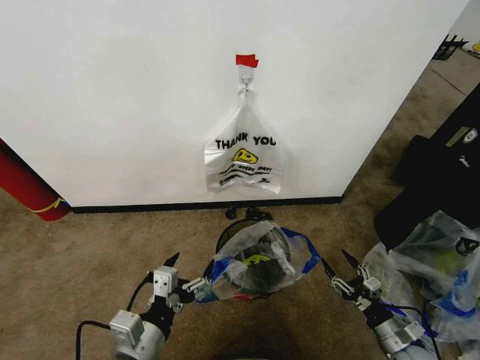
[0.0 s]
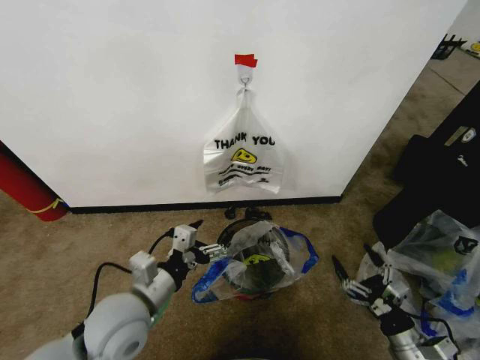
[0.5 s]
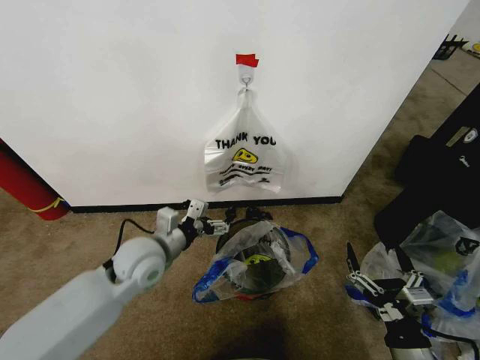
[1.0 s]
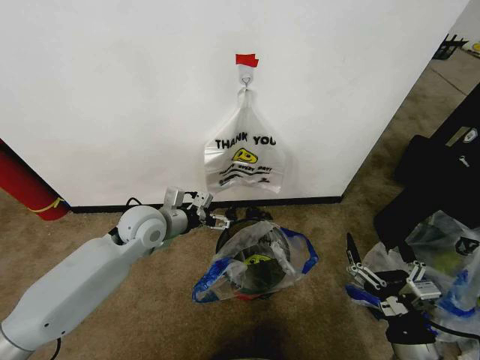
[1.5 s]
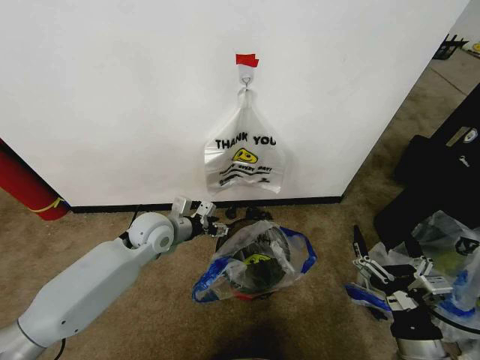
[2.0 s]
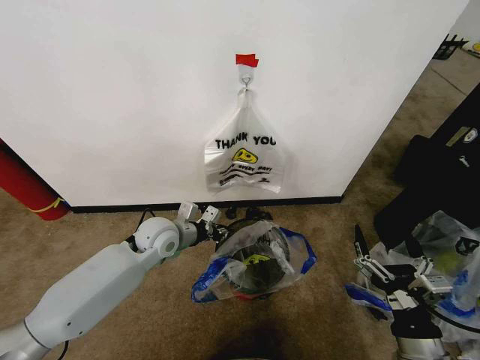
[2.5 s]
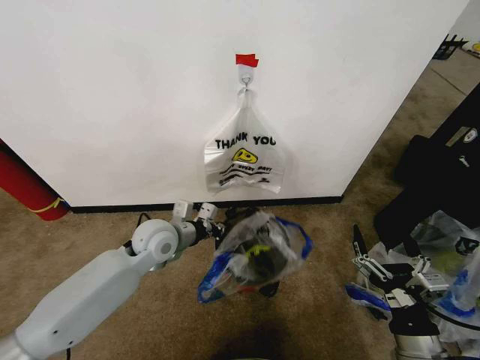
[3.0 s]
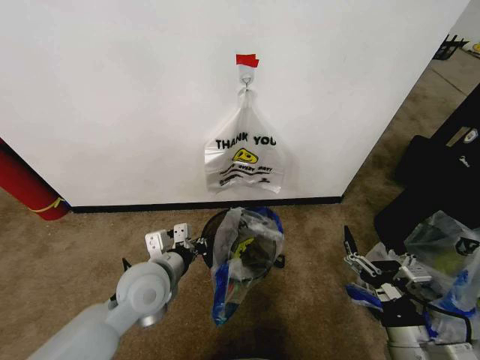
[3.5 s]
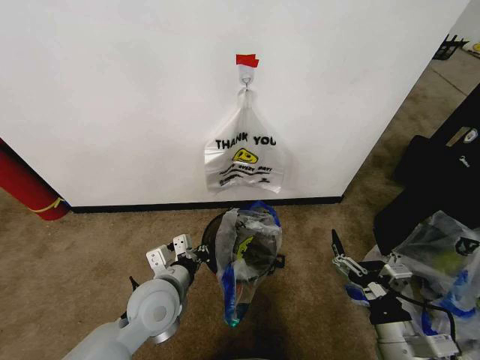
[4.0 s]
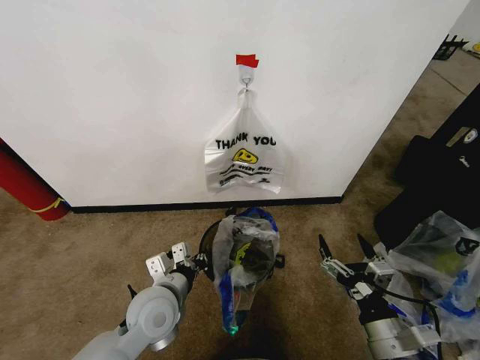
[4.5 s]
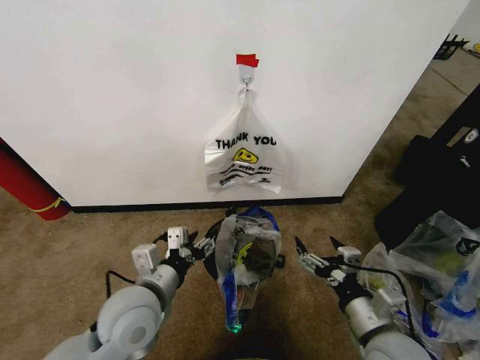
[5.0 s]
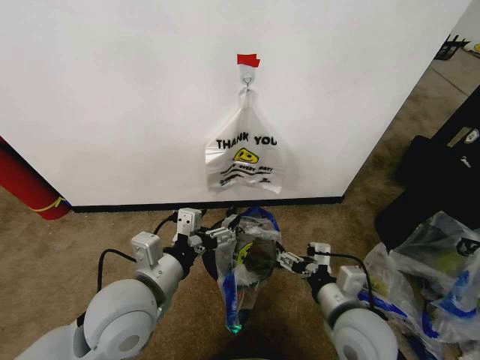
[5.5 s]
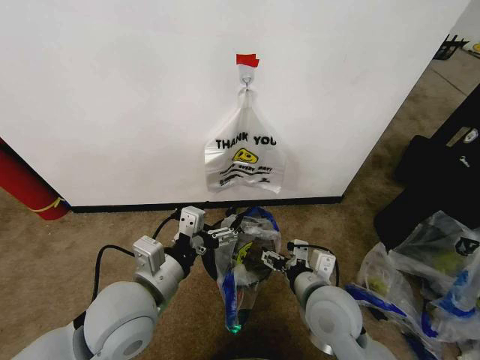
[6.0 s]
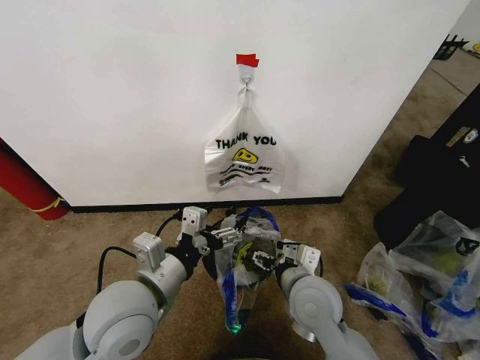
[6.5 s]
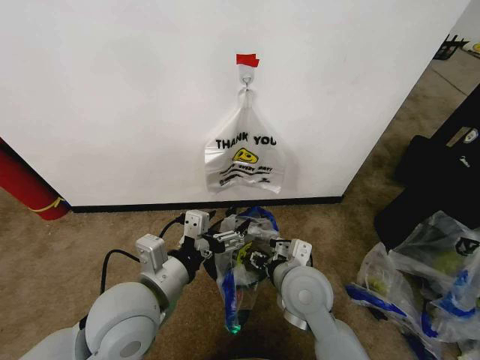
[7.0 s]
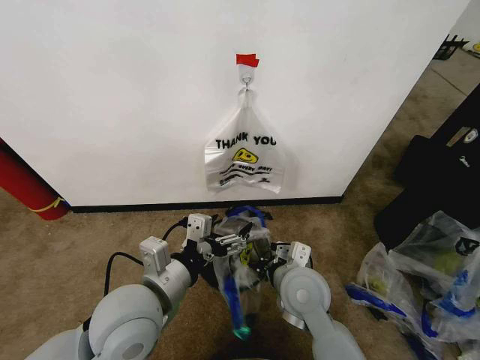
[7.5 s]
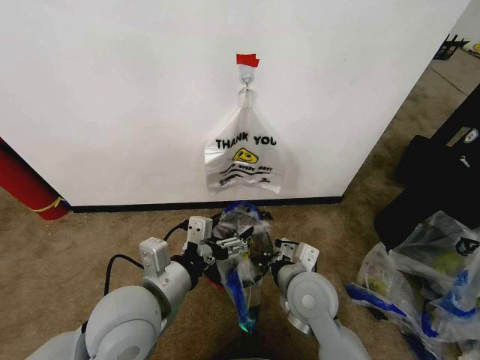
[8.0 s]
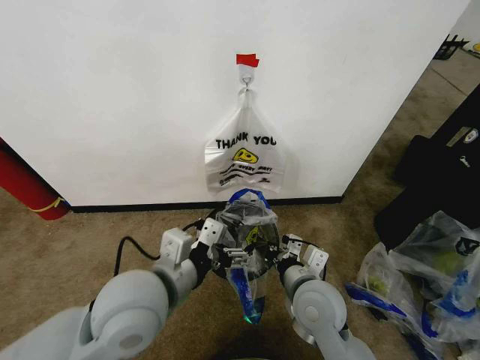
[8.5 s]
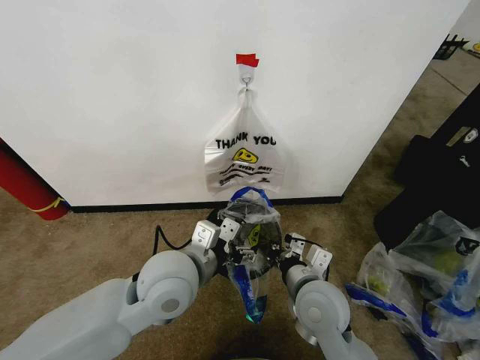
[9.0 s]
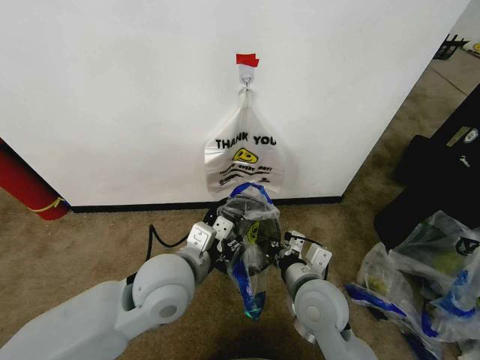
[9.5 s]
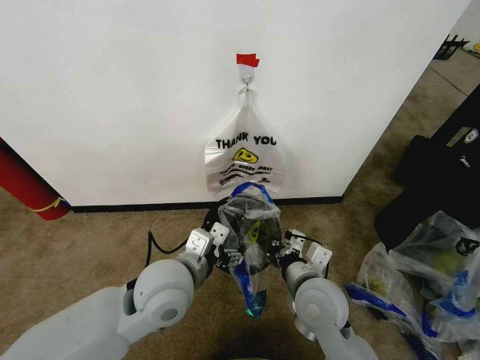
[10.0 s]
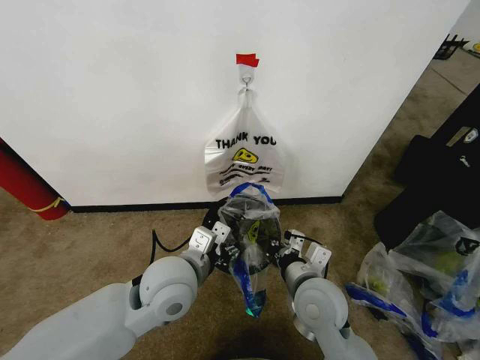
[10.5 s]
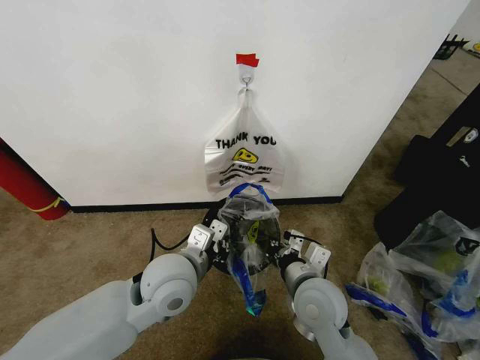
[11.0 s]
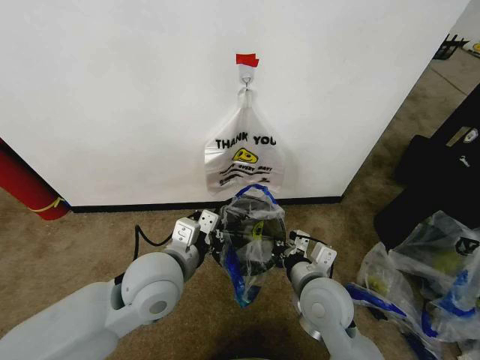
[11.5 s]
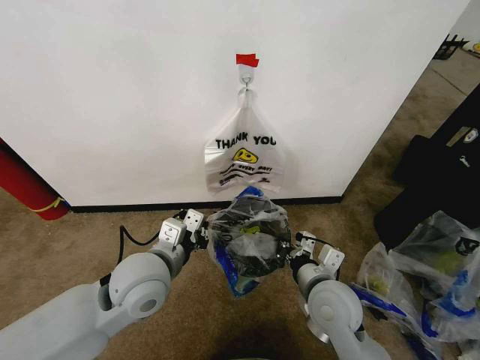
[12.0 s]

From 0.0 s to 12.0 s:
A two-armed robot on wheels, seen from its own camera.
Task of the whole recording: Pick up the garbage bag from the wall and place it over the trash bin.
From 0.0 s to 2.0 s: The right gripper is displaced upward, to the left and backward by about 20 cm. The left gripper travels forward by roughly 30 cm.
From 2.0 s to 4.0 s: The left gripper shifts roughly 15 cm backward, and closes.
From 4.0 s to 6.0 s: The right gripper goes some 15 cm to the left and forward; the left gripper moves upward, approximately 10 cm, and opens its fingers.
From 6.0 s to 8.0 s: The right gripper closes up.
From 8.0 s to 10.0 s: The left gripper moves approximately 5 cm, and closes, then opens again.
From 10.0 s to 12.0 s: The left gripper closes.

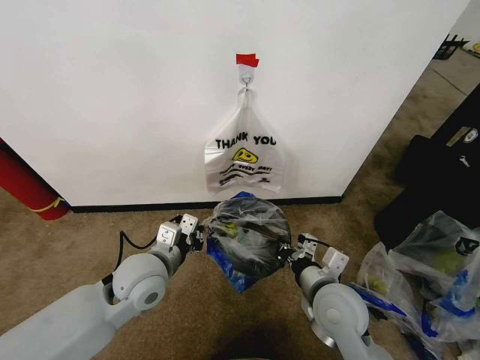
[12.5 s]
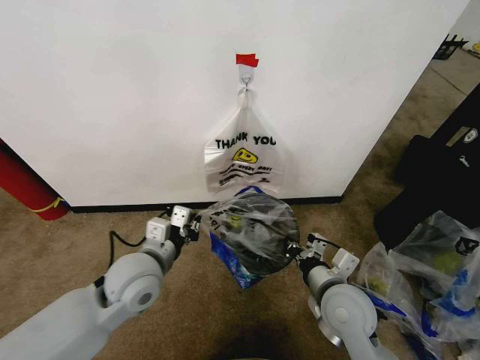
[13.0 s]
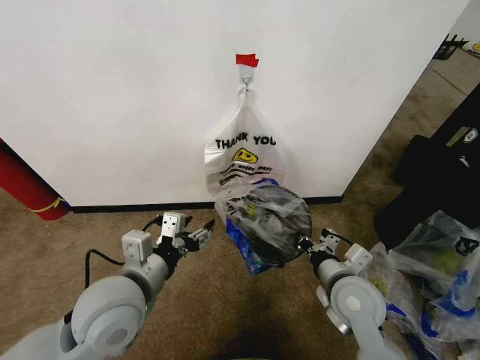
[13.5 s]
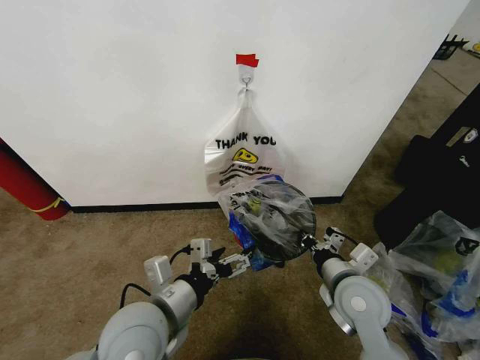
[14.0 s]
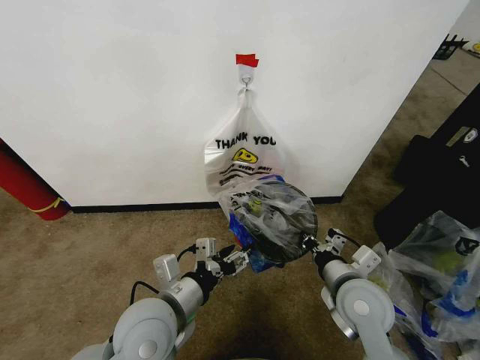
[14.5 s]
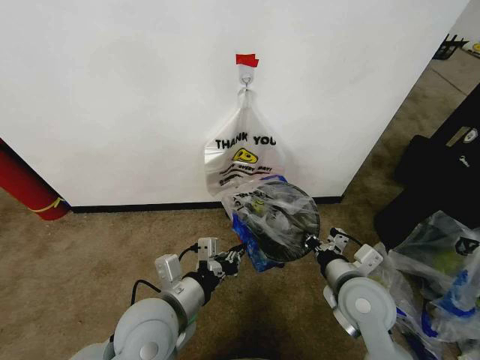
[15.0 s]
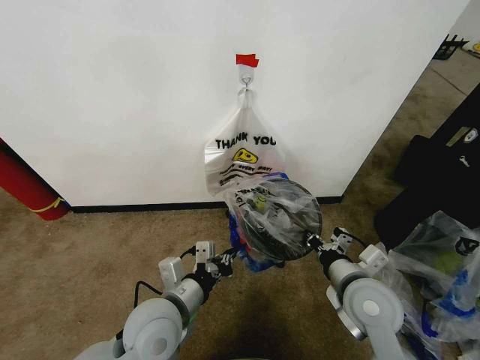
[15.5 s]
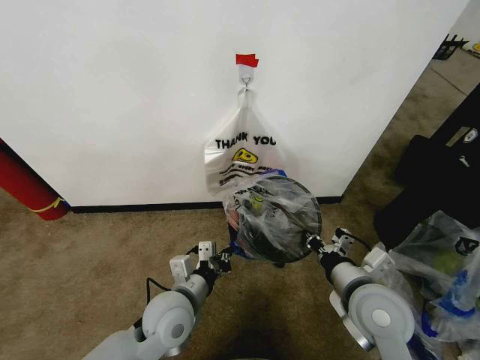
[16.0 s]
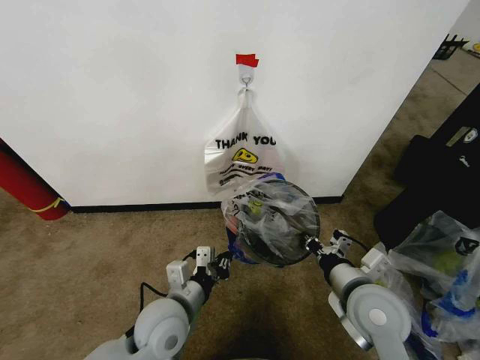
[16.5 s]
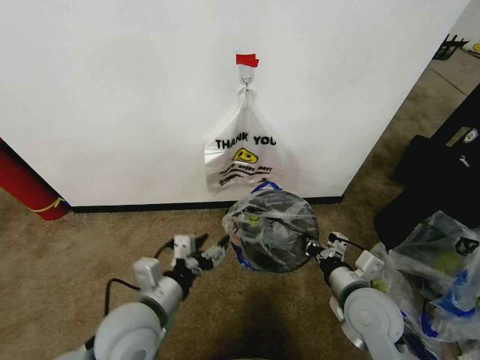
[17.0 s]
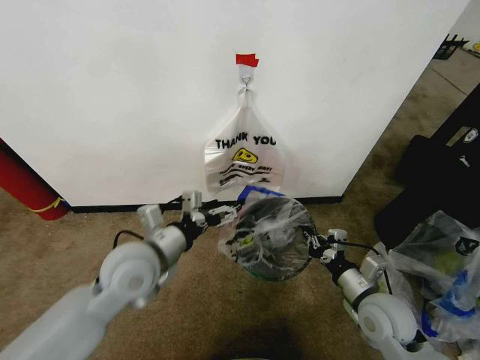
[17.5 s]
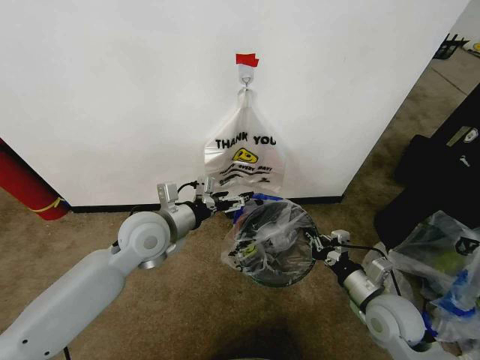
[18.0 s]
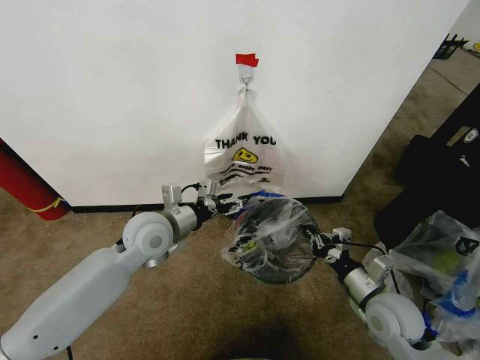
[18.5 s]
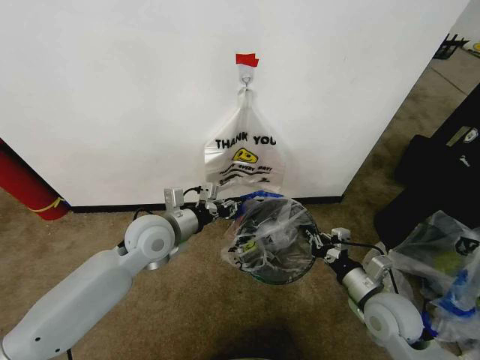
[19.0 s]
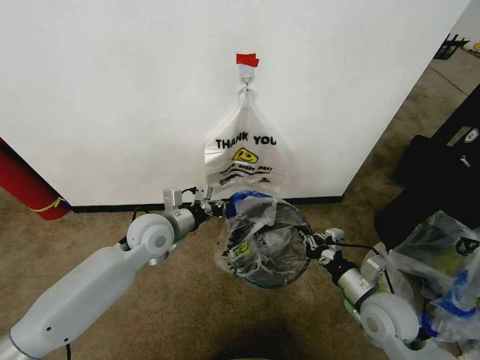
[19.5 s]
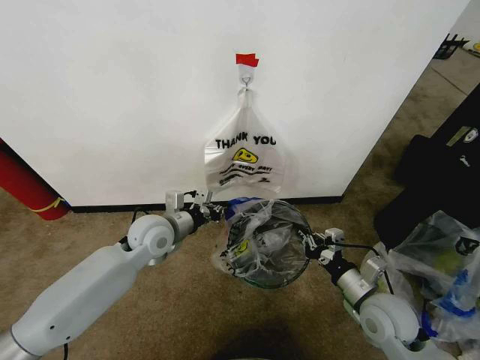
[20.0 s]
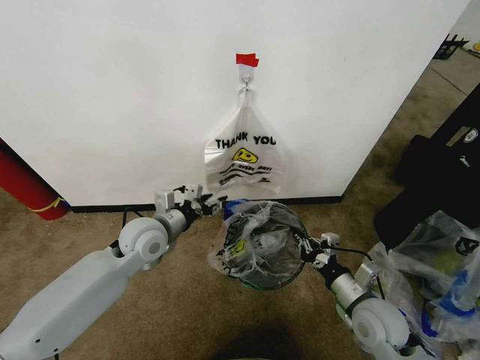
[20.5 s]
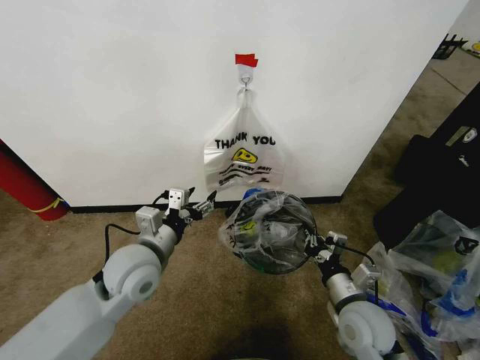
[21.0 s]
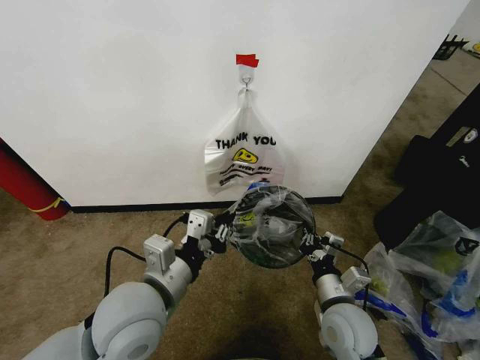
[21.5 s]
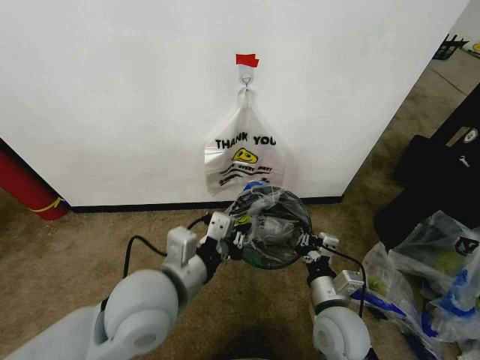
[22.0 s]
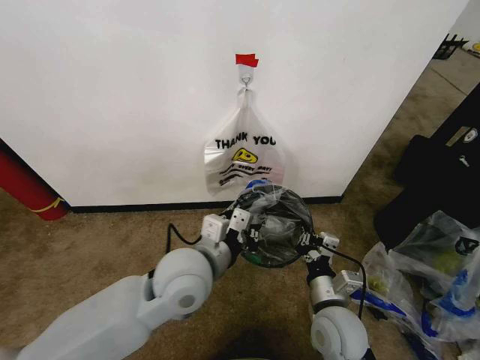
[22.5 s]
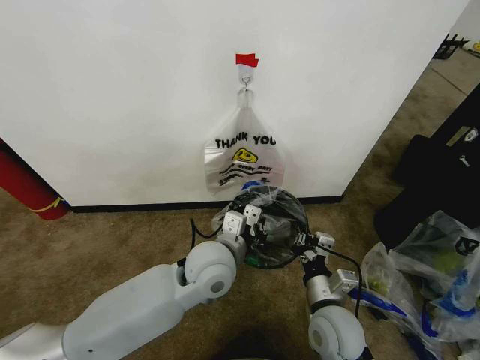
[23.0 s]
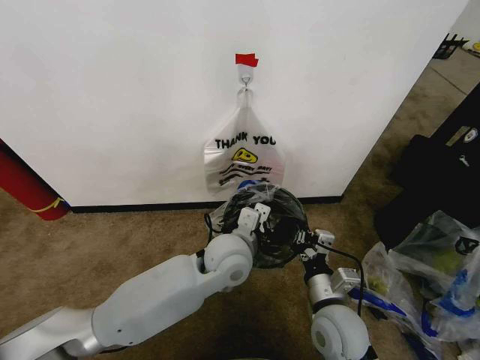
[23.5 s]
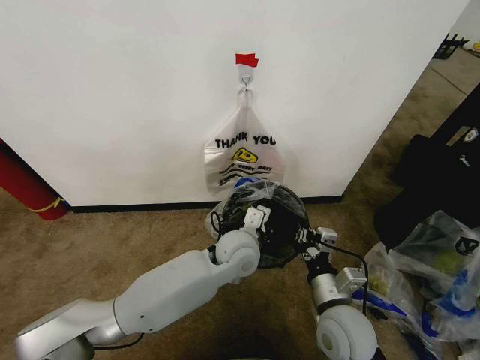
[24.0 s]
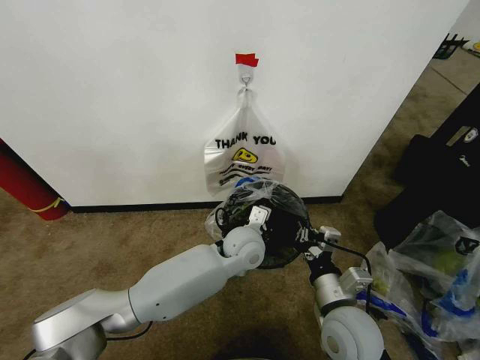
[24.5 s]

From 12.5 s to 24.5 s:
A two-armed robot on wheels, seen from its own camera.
Task of the whole recording: Pick up the garbage bag from the wall and place it over the trash bin.
From 12.5 s to 14.5 s: The left gripper moves backward, about 10 cm, and opens its fingers.
From 14.5 s to 16.5 s: The left gripper goes approximately 5 cm downward, and closes up.
From 16.5 s to 18.5 s: The right gripper goes about 10 cm downward and to the right; the left gripper goes roughly 15 cm forward and upward, and opens up.
From 18.5 s to 20.5 s: The left gripper closes, then opens again.
From 20.5 s to 22.5 s: The left gripper is displaced to the right and backward by approximately 15 cm, and closes up. Meanwhile the right gripper heads to the left, covering roughly 10 cm.
From 22.5 s to 24.5 s: The left gripper moves forward, to the right and downward, about 20 cm.

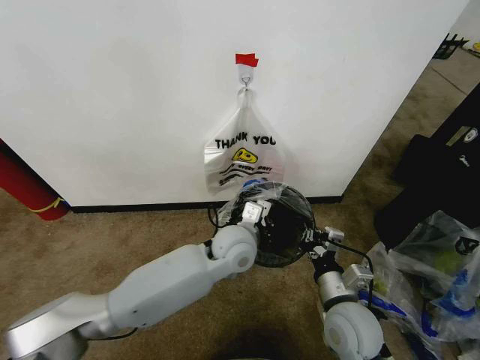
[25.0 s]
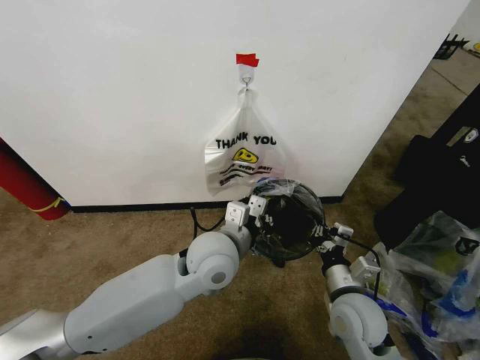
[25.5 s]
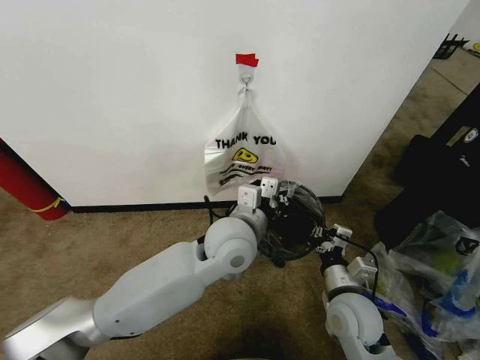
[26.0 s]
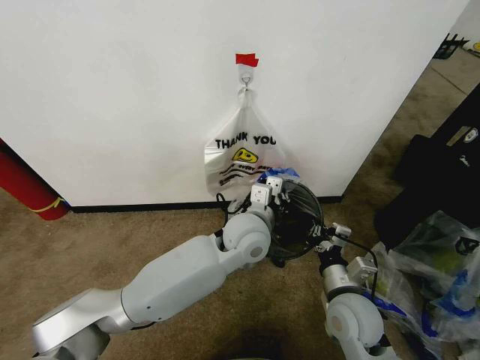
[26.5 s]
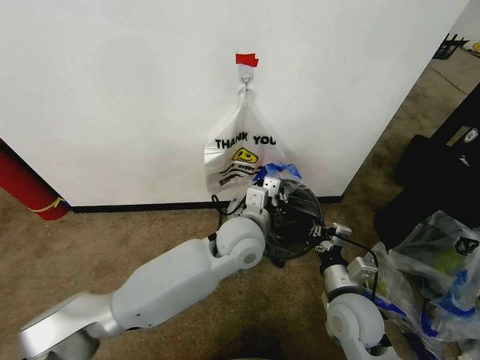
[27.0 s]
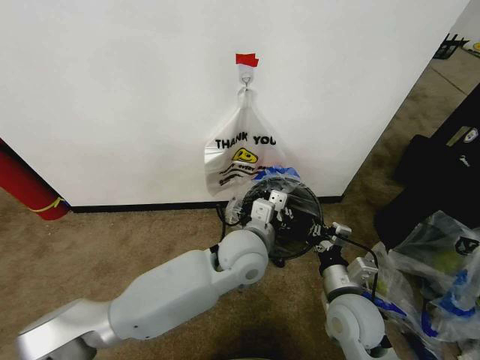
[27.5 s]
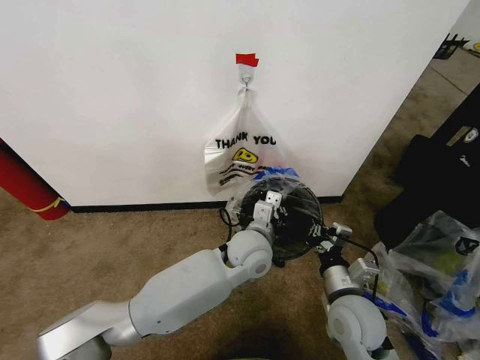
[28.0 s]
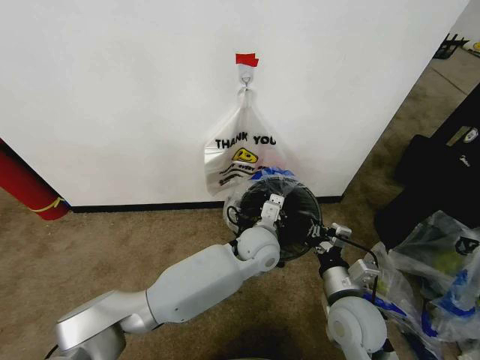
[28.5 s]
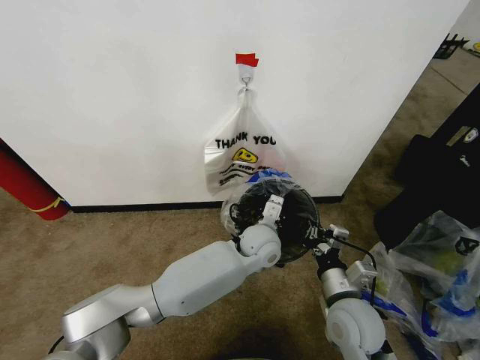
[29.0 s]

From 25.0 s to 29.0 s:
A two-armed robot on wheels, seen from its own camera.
Task of the whole recording: Pick up the garbage bag from the wall and place it over the trash bin.
From 27.0 s to 29.0 s: The left gripper moves downward and to the right, some 10 cm.
